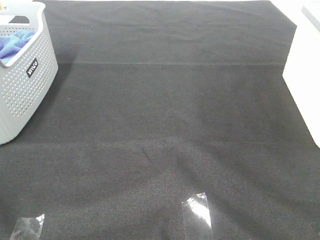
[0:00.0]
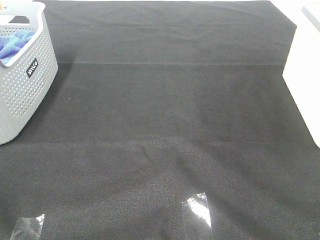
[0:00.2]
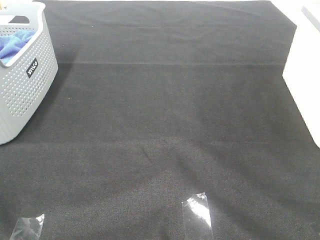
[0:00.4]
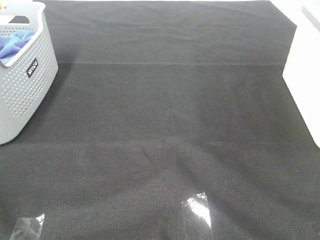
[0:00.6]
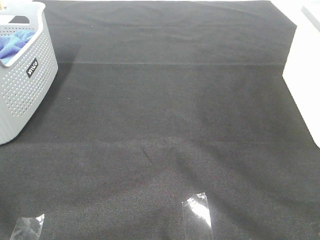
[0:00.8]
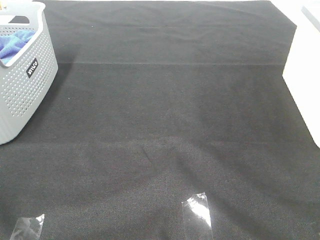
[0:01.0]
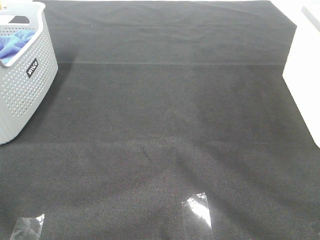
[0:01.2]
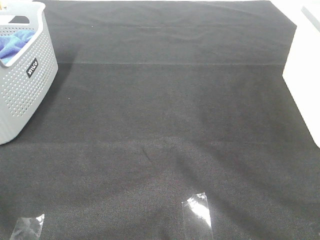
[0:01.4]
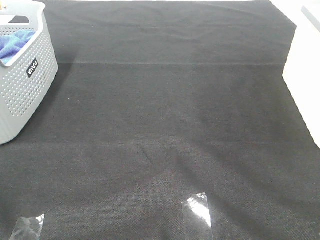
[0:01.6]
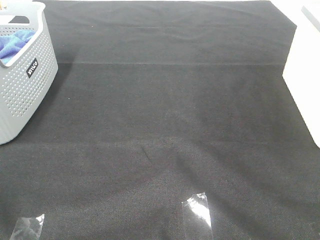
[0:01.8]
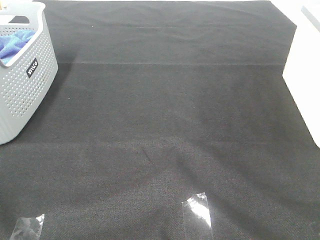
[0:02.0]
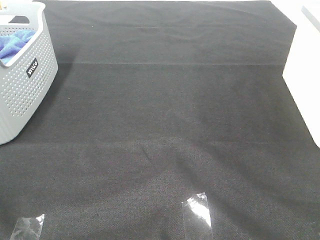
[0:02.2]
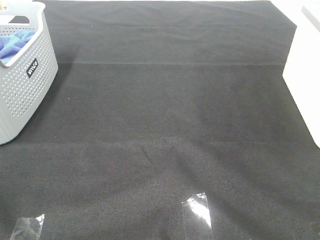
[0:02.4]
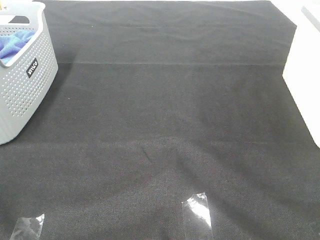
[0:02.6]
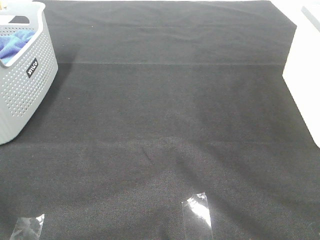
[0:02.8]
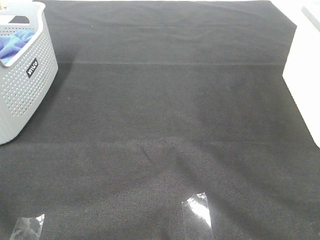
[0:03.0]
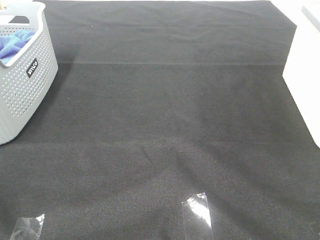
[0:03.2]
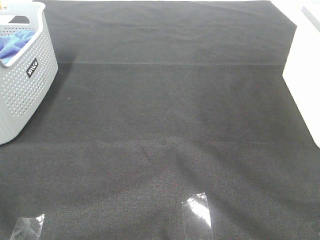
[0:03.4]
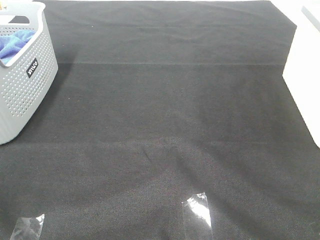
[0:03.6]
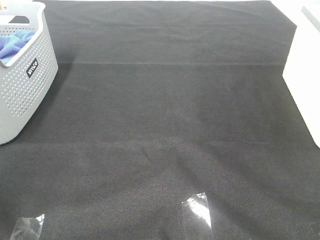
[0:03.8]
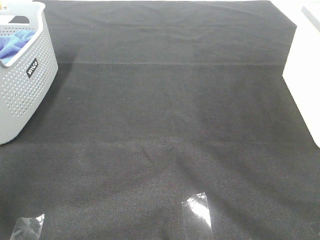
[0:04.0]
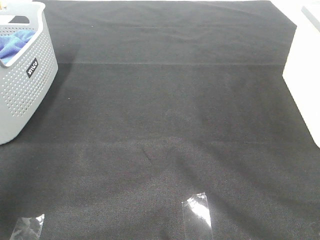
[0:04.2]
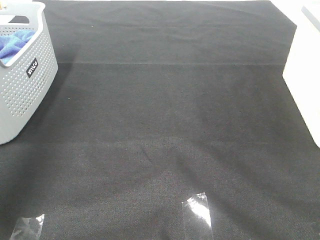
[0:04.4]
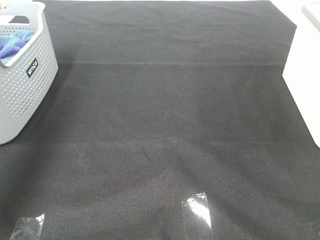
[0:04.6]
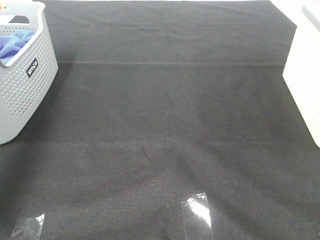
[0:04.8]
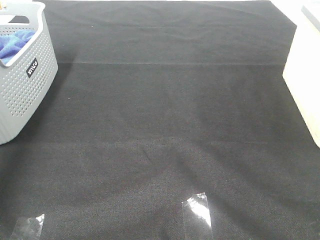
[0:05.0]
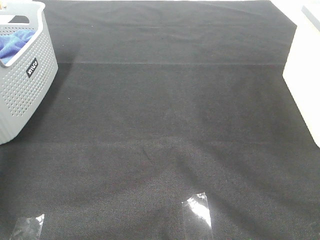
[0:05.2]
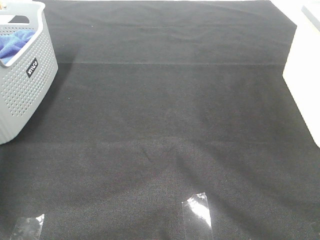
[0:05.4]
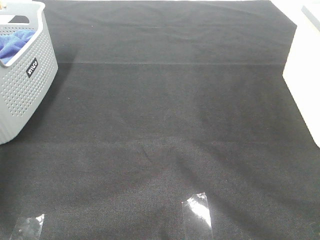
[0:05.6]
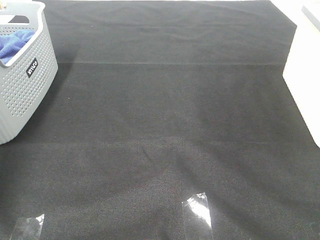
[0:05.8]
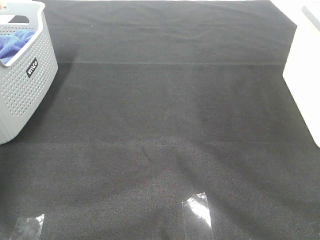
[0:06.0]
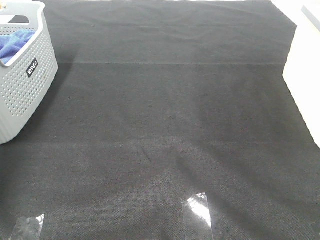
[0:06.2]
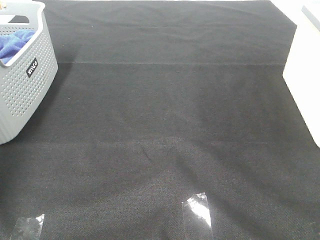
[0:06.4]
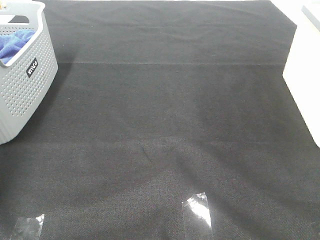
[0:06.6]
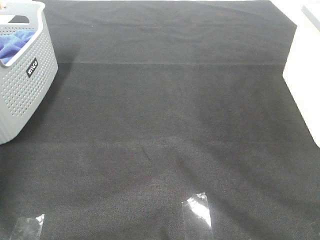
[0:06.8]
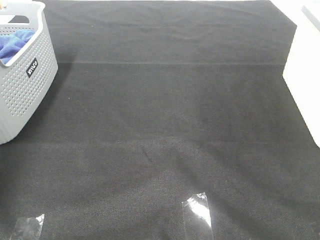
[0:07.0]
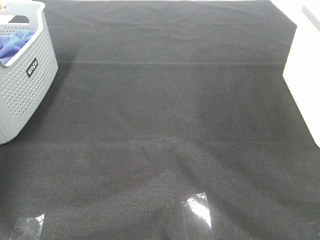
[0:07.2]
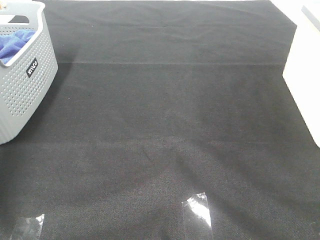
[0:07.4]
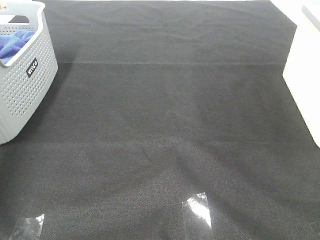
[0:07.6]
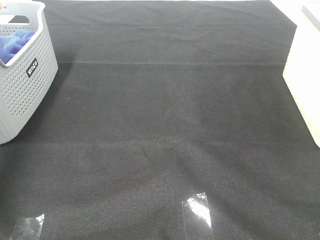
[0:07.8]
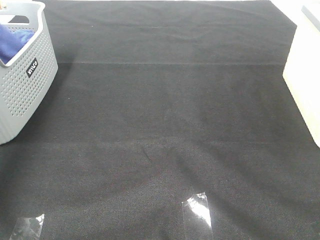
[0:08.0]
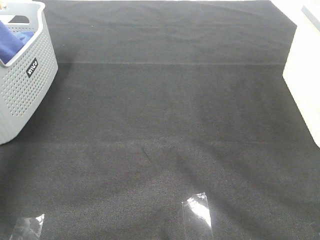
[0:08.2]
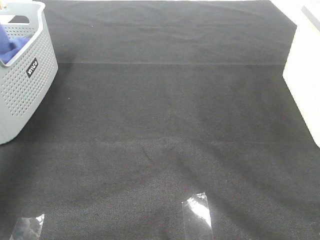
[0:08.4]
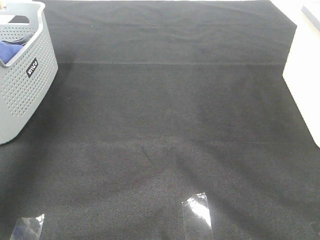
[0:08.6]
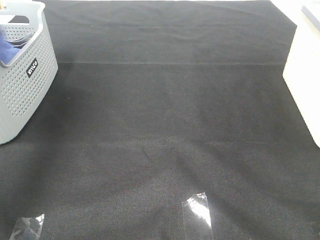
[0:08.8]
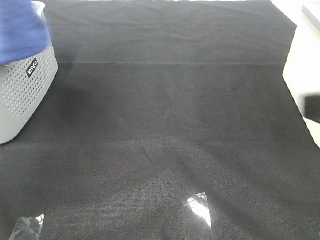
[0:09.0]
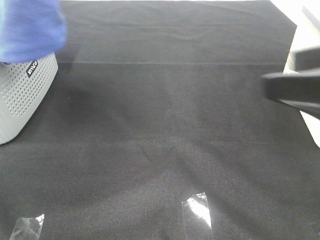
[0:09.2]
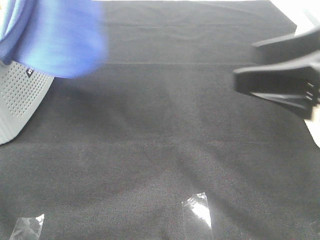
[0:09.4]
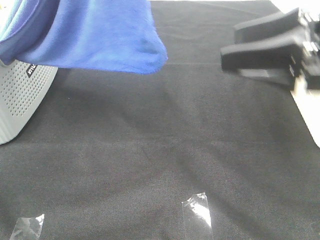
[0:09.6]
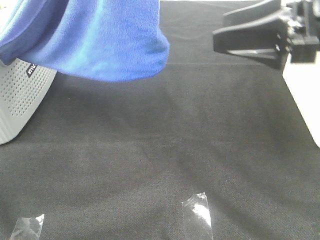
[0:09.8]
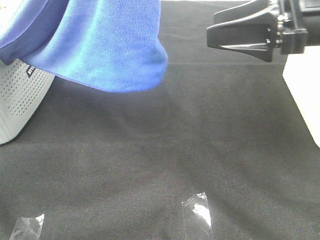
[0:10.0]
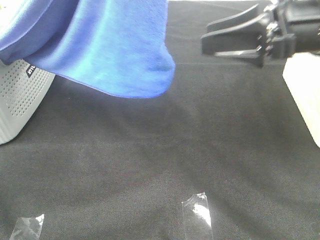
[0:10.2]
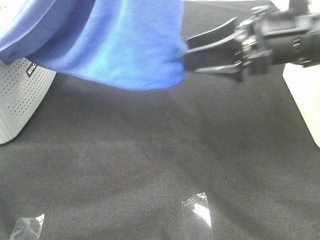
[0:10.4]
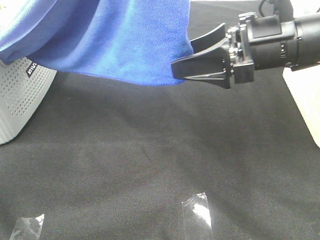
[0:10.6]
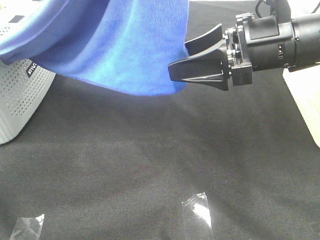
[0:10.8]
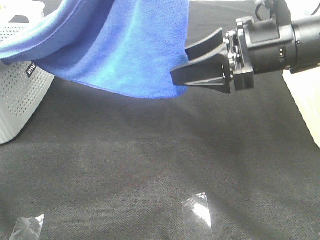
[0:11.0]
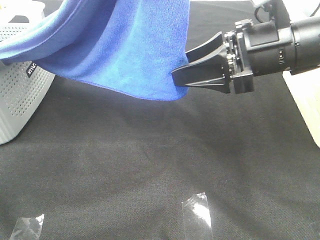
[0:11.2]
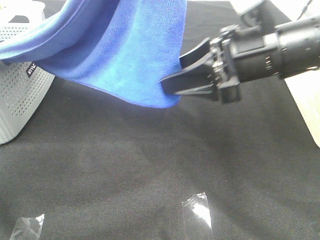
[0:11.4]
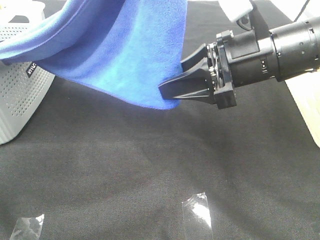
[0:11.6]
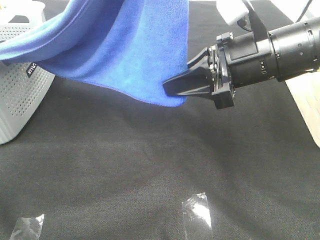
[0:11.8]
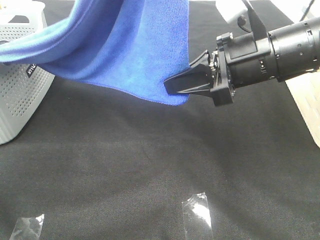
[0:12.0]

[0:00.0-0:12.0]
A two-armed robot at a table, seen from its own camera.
Task of the whole recording: Remove the towel and place it.
Step, 0:08.4 to 0:11.2: Right hand: grab a corner of the blue towel and straighten it.
0:00.0 to 0:03.0: Both grippers stay about where they are.
0:03.0 to 0:04.4: The left gripper shifts roughly 25 cm forward and upward.
0:04.4 to 0:06.0: The left gripper travels forward and downward by approximately 30 cm.
0:07.6 to 0:09.0: The right gripper heads forward and to the left, covering approximately 10 cm; the left gripper moves upward, to the right and backward, roughly 30 cm.
0:09.0 to 0:10.4: The left gripper travels to the right and backward by some 15 cm, while the right gripper shifts approximately 20 cm forward.
0:10.4 to 0:12.0: The right gripper closes up.

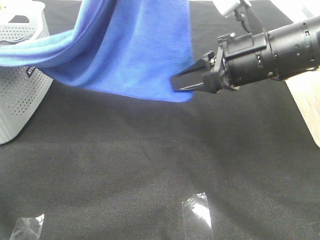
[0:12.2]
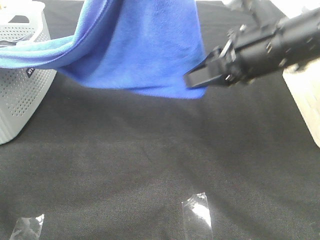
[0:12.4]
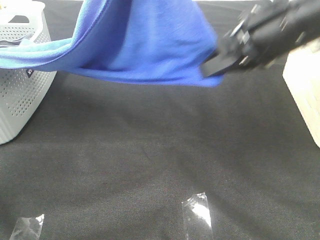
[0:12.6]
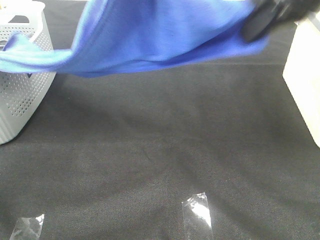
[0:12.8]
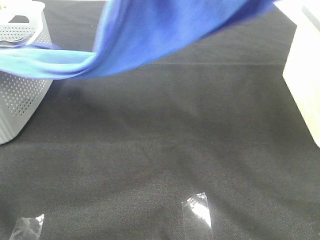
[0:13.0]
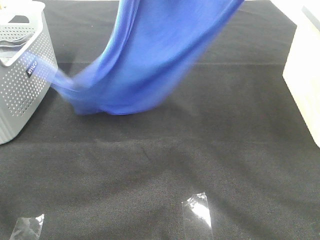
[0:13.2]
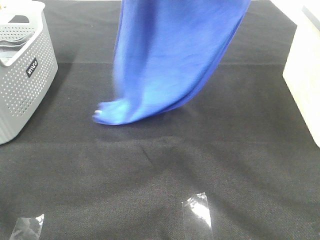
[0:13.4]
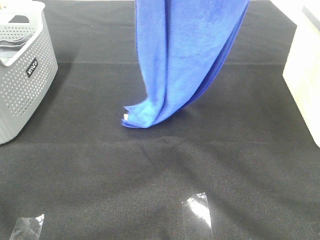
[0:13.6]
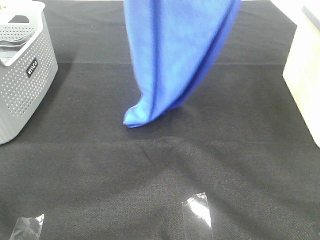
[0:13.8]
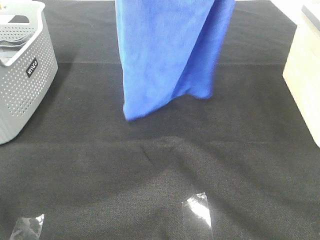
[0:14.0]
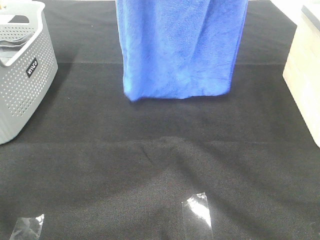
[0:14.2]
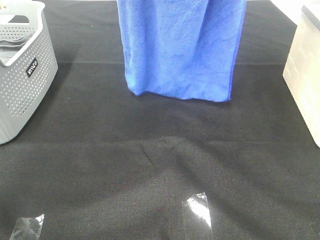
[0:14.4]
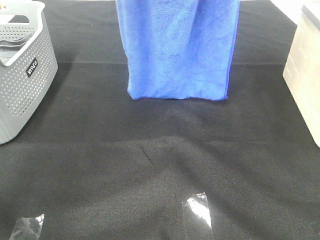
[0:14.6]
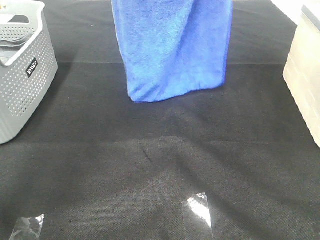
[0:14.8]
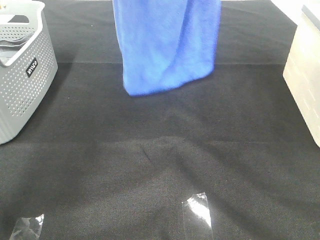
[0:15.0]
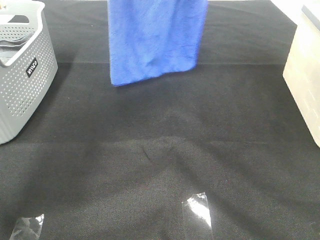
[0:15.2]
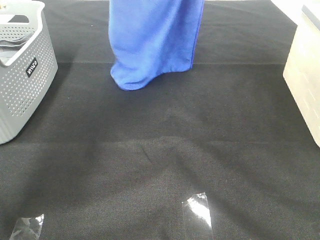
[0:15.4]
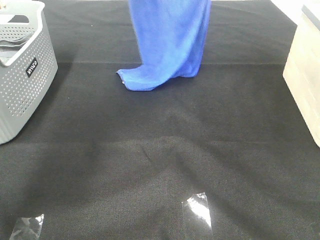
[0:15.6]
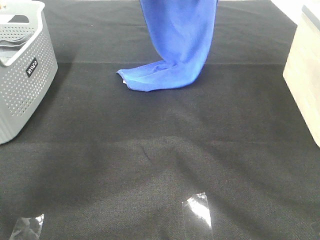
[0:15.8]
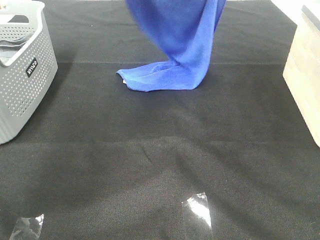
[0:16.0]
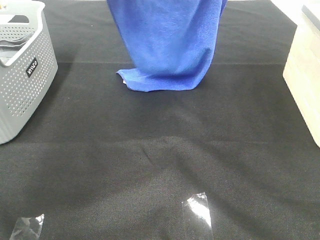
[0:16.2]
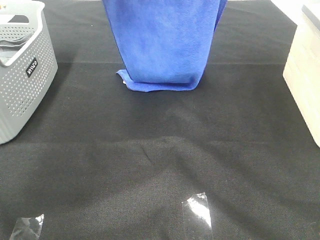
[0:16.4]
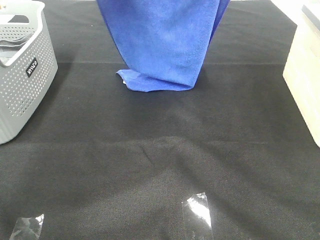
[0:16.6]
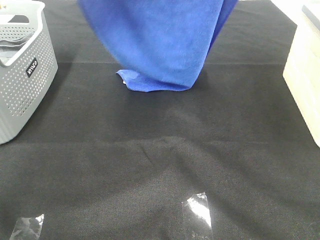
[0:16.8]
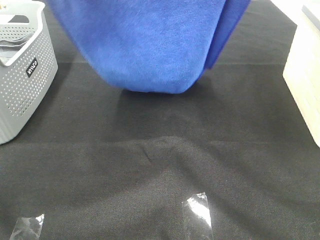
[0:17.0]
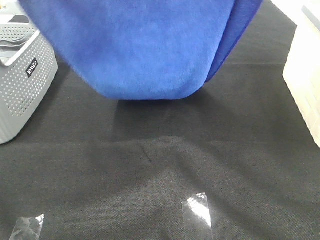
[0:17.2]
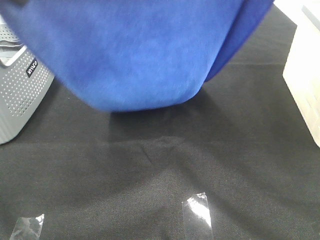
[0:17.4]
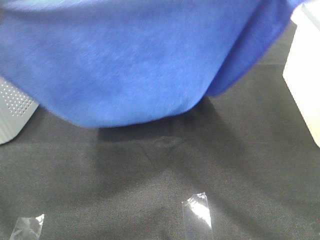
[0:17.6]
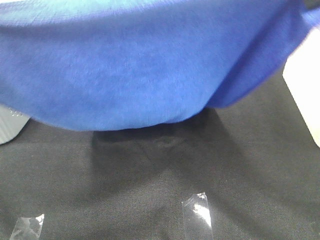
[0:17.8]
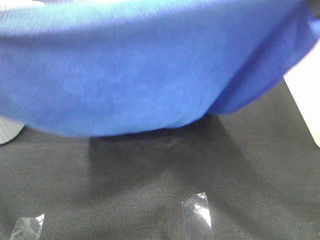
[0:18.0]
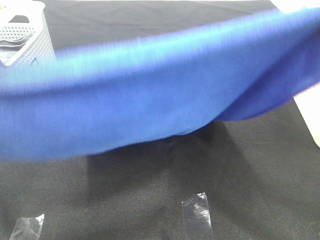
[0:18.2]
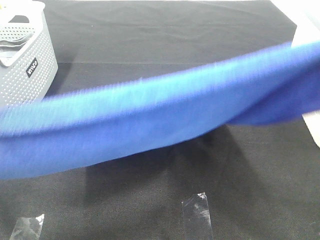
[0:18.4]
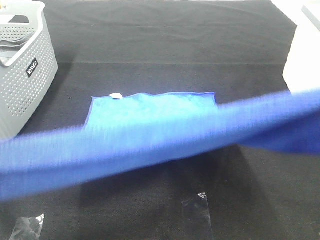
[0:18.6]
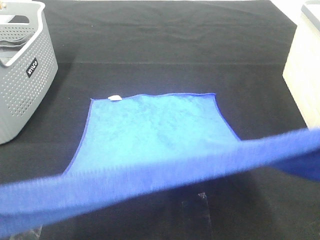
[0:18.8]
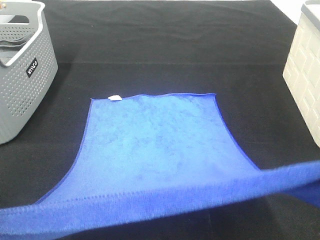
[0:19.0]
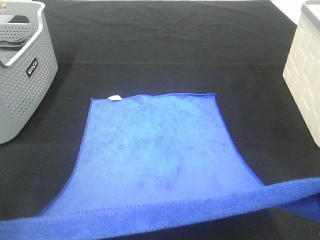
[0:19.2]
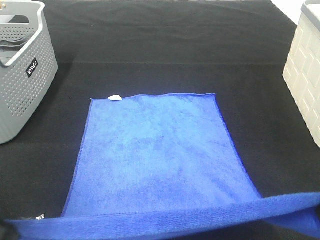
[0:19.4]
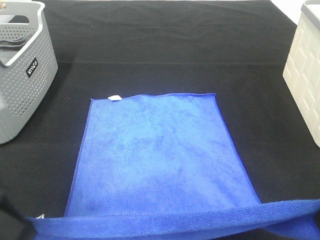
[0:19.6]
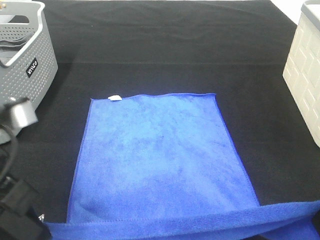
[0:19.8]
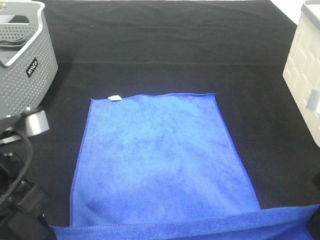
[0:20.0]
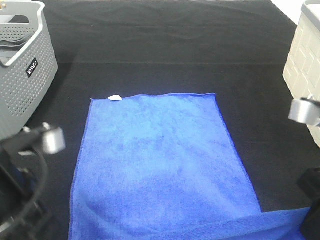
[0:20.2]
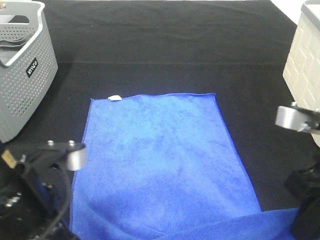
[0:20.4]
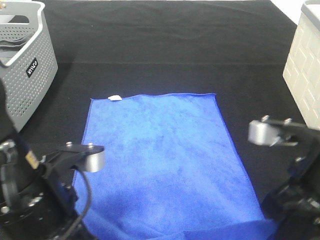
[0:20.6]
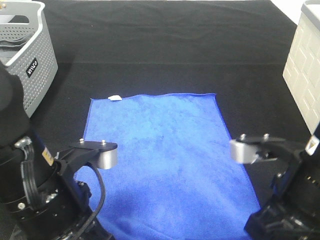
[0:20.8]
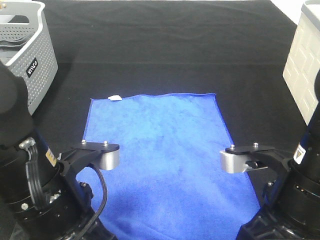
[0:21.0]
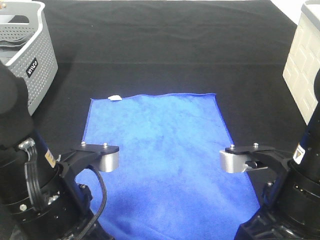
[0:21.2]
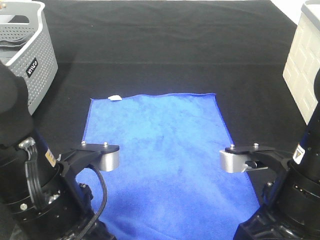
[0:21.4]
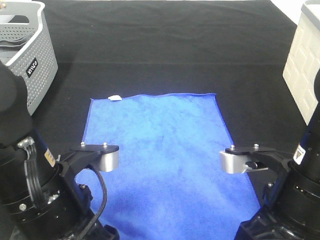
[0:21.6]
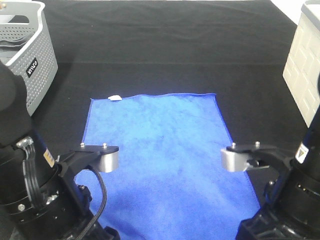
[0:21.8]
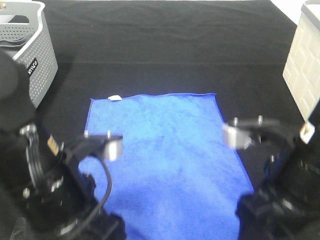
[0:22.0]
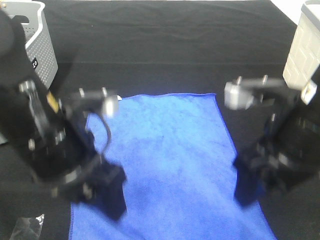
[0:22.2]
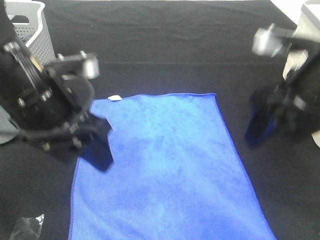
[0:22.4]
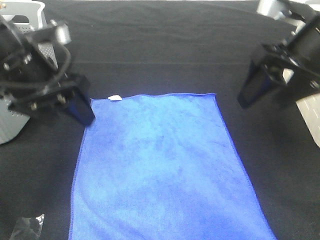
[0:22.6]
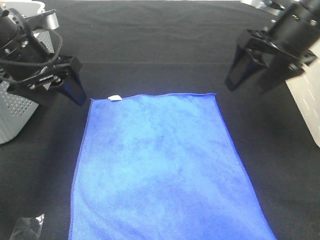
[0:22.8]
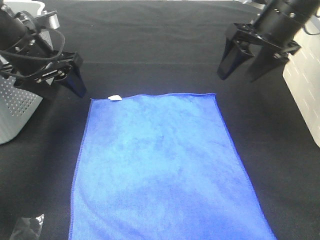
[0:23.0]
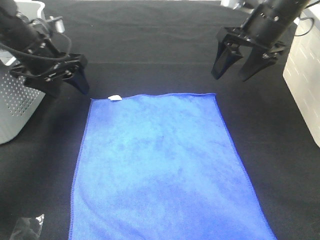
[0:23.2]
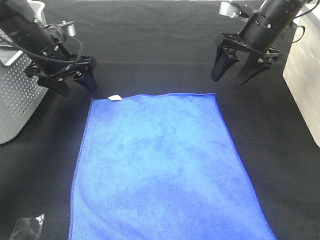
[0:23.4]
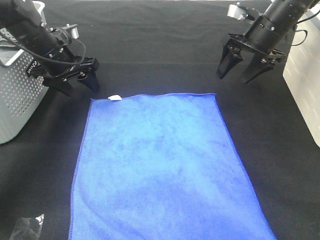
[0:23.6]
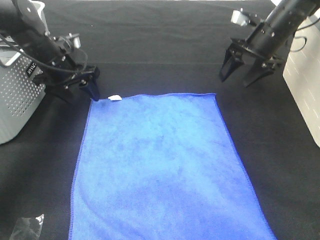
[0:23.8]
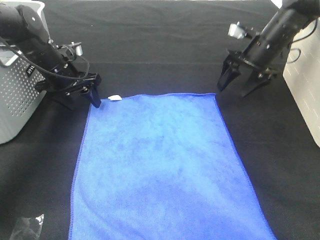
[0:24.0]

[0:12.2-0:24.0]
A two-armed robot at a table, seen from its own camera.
Task of the whole recording: Remove the towel and place it.
Step, 0:12.2 to 0:17.4: Left hand: spread the blue towel flat on the table.
Step, 0:12.2 to 0:17.4: Right hand: spread the blue towel flat on the table.
Step, 0:17.6 to 0:24.0: Left hand:adjust the blue towel.
Step, 0:17.6 to 0:24.0: Right hand:adjust the blue towel.
0:12.2 to 0:13.6: The right gripper shifts roughly 25 cm upward. Meanwhile the left gripper moves forward, roughly 5 cm.
0:13.6 to 0:15.2: Both grippers travel together forward, roughly 15 cm.
0:15.2 to 0:16.6: The grippers both shift backward by some 10 cm.
0:16.6 to 0:18.2: The two grippers go roughly 25 cm backward.
0:18.2 to 0:19.6: Both grippers travel together downward, some 15 cm.
0:19.6 to 0:21.0: The right gripper moves downward and to the left, some 10 cm, while the left gripper moves to the right and downward, approximately 10 cm.
0:21.0 to 0:22.6: The right gripper shifts about 15 cm forward and upward, and opens; the left gripper goes some 15 cm forward, to the left and upward, and opens.
0:22.6 to 0:24.0: Both grippers travel together forward and downward, about 20 cm.
